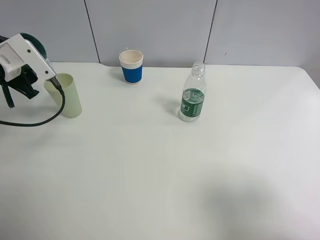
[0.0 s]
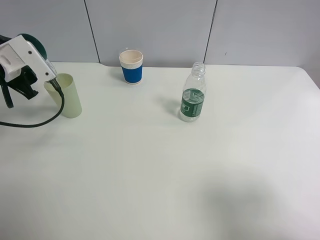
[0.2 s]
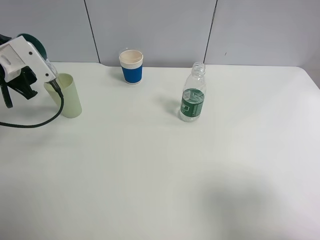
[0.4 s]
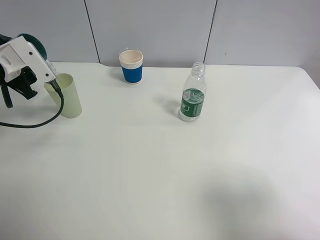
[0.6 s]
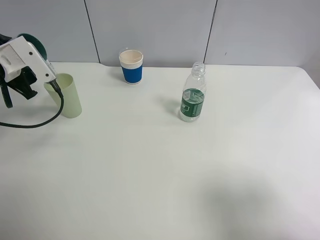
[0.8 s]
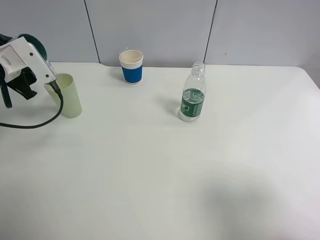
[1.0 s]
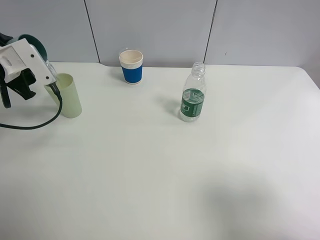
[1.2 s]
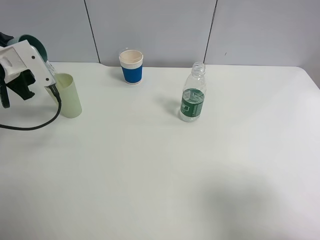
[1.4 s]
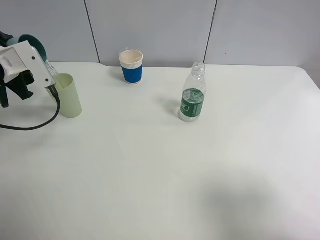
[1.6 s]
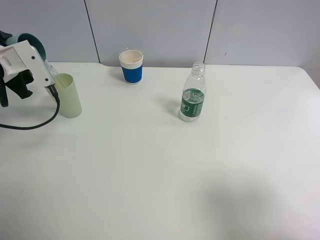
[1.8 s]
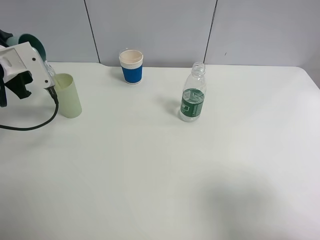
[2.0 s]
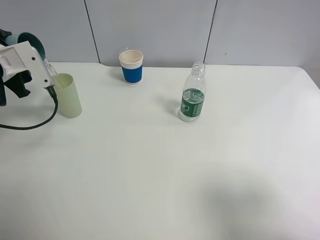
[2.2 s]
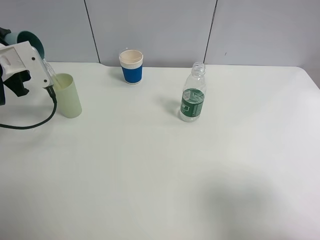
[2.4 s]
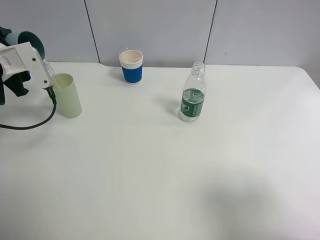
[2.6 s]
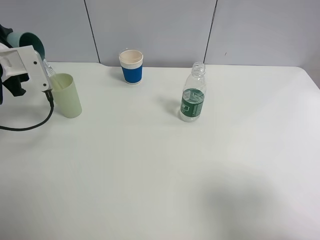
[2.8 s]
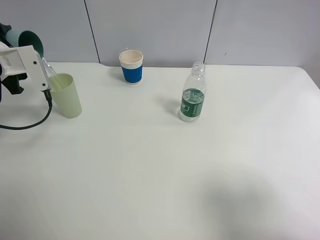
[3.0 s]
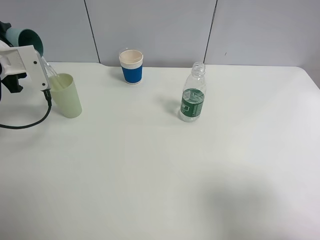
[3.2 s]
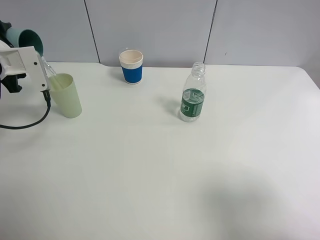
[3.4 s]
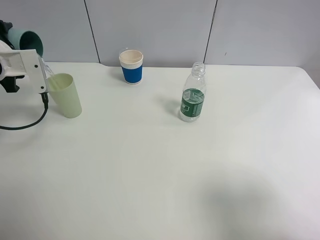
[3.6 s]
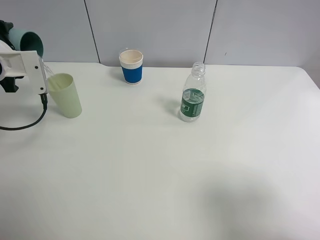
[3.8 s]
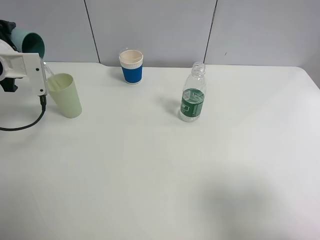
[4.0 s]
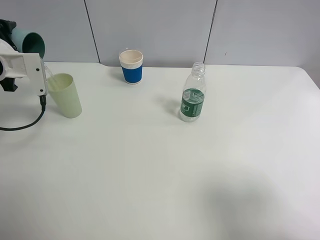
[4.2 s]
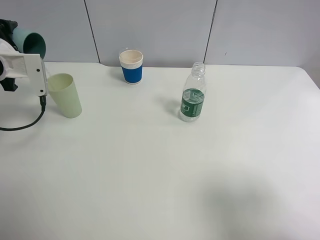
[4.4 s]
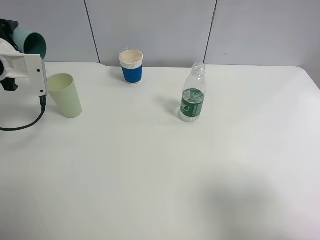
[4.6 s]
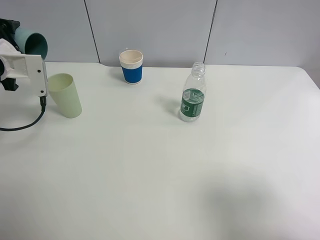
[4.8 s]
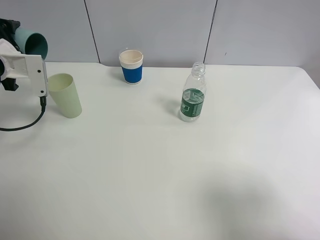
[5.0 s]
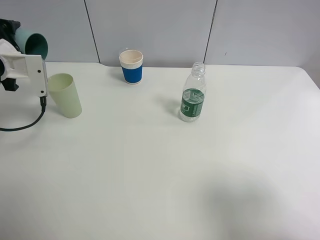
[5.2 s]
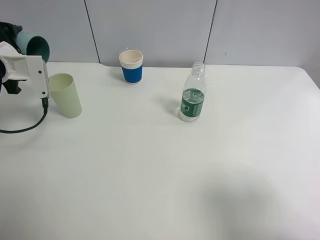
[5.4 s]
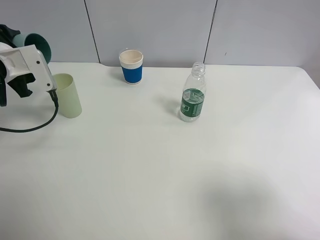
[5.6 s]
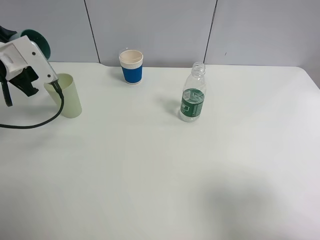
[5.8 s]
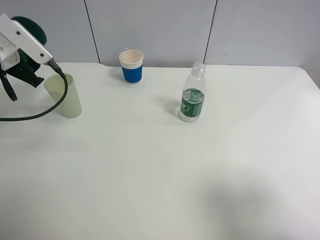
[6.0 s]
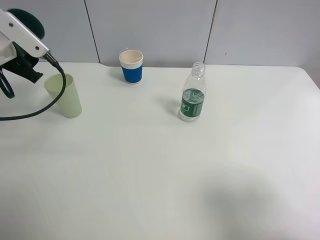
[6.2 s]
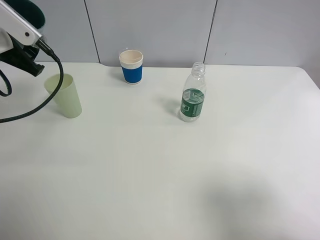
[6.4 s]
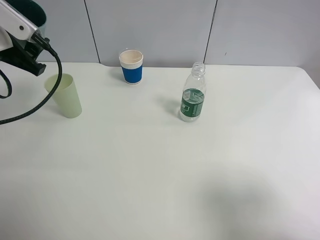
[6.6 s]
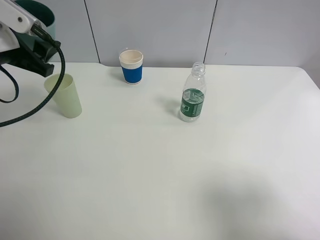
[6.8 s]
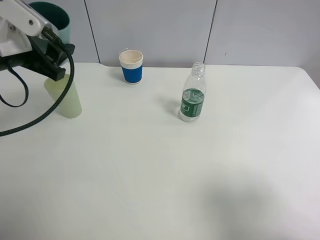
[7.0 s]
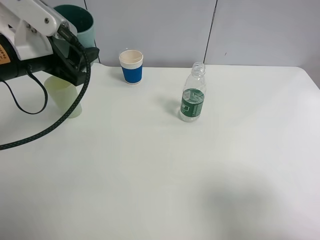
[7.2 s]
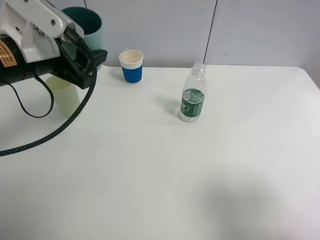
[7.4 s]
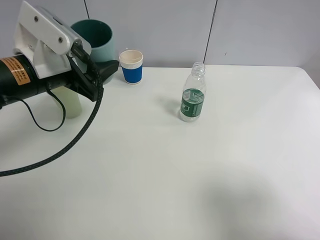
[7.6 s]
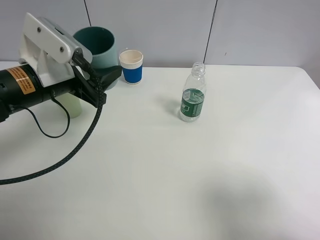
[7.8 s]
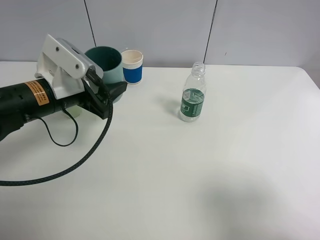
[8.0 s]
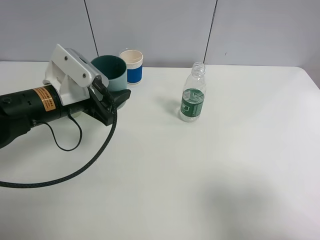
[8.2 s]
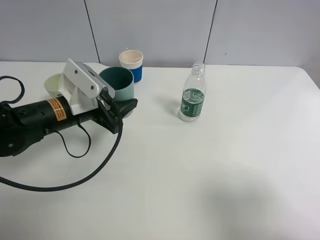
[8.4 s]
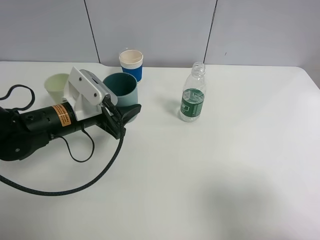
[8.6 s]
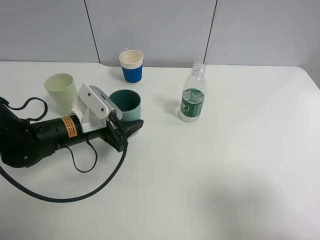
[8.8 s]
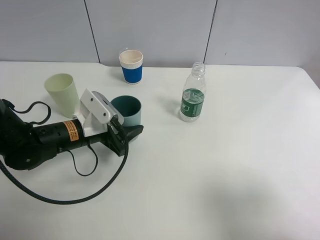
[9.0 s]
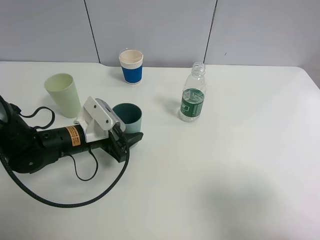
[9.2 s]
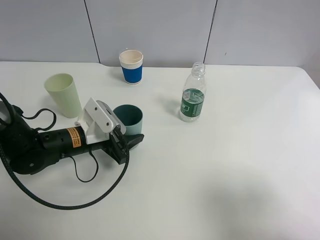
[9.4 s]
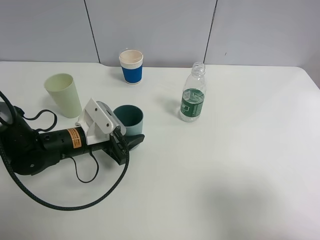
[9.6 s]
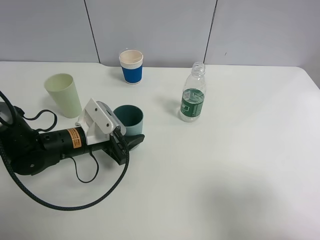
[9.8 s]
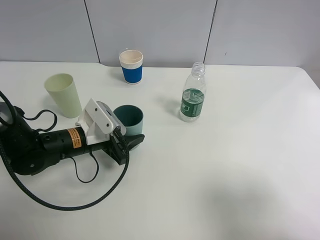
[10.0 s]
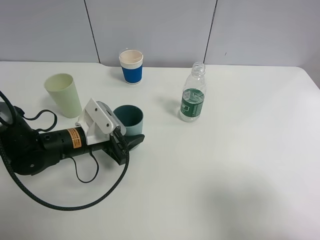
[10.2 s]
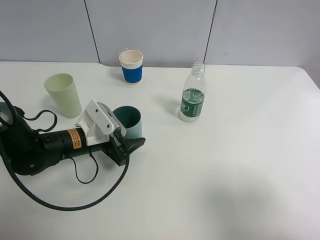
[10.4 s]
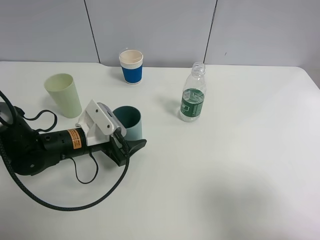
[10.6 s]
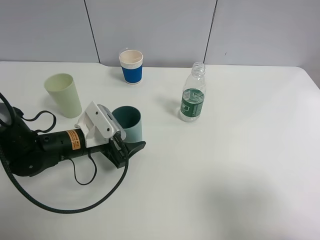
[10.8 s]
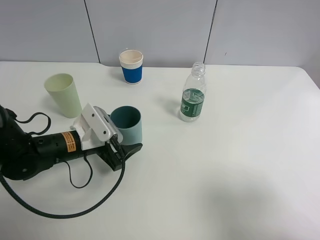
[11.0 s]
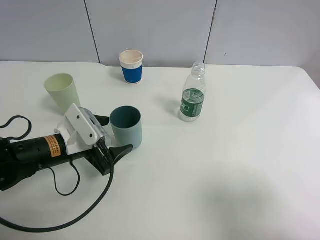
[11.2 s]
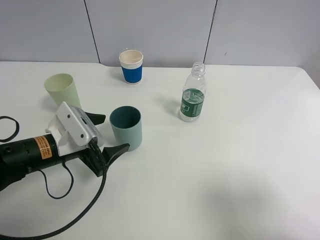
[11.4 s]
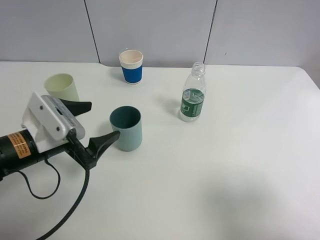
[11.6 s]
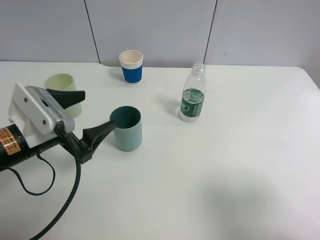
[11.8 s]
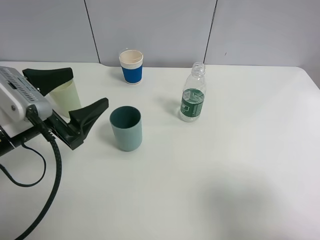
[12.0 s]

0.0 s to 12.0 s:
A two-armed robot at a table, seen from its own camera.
Task of the whole recording: use a clamp to hold the bottle of the drink, pour the beverage into a random cup, then clamp the cup containing the drink and pour the drink into another random cup.
Step, 0.0 to 6.6 s: Pour the water into the green plastic cup with left gripper.
Step, 6.8 to 11.0 s: Place the blue plastic cup on the table with left gripper.
0.0 to 1.6 s: There are only small adjustments of the grippers.
1.6 to 3.0 s: The grippers move only a little.
3.0 to 4.4 s: The grippers make only small movements.
6.0 to 7.6 s: The left gripper goes approximately 15 cm to the right and backward.
7.6 to 9.0 s: The left gripper heads downward, covering about 15 cm.
9.0 to 10.4 s: The left gripper opens up.
10.4 to 12.0 s: The left gripper moves upward, backward and to the left, some 15 cm.

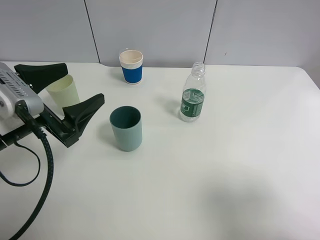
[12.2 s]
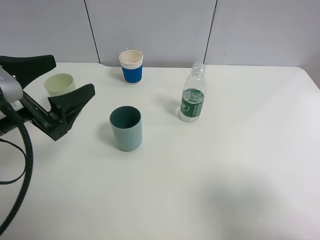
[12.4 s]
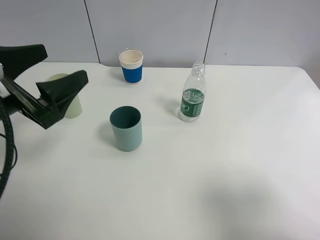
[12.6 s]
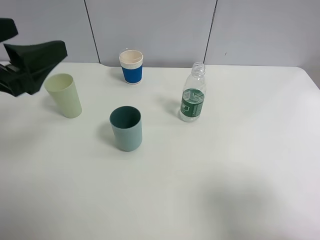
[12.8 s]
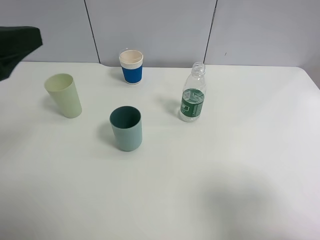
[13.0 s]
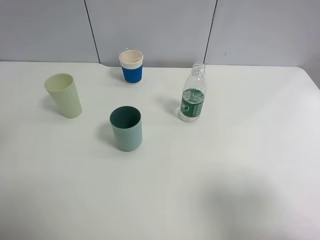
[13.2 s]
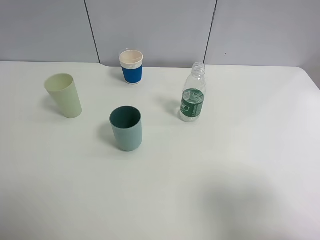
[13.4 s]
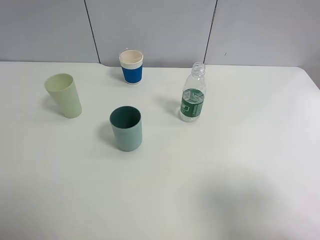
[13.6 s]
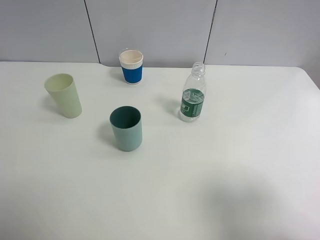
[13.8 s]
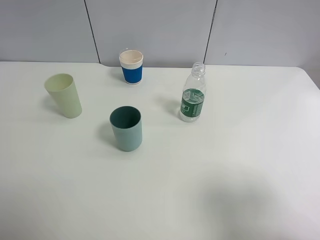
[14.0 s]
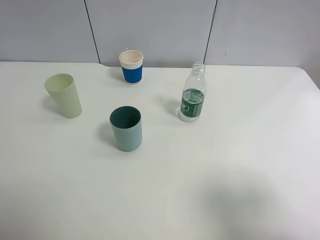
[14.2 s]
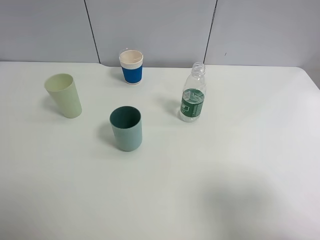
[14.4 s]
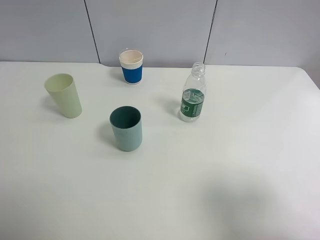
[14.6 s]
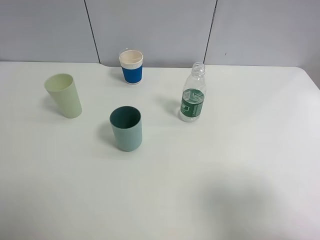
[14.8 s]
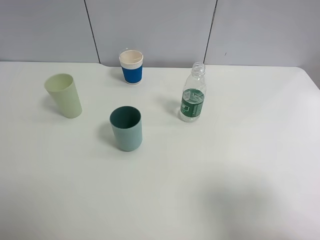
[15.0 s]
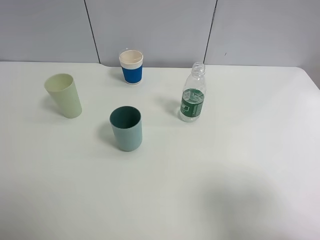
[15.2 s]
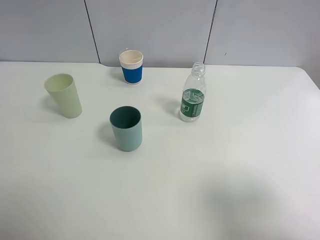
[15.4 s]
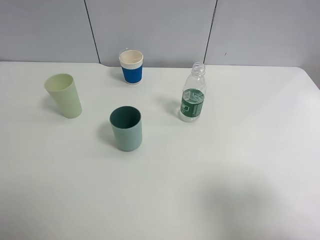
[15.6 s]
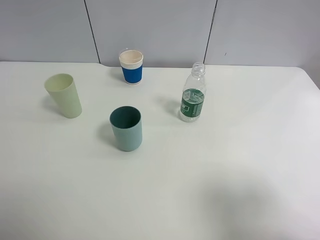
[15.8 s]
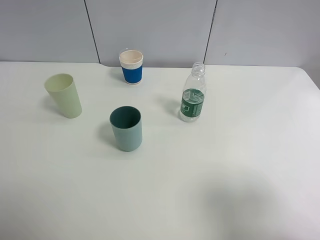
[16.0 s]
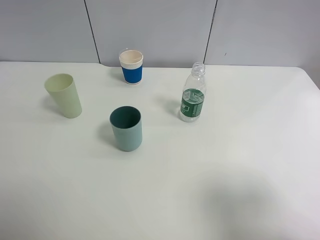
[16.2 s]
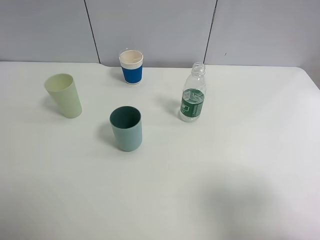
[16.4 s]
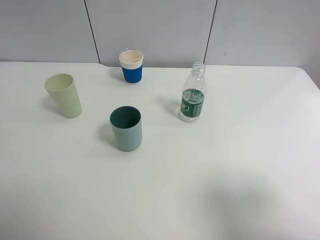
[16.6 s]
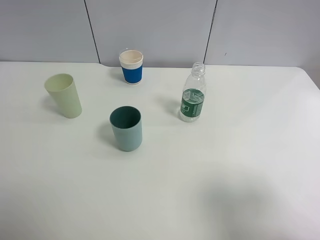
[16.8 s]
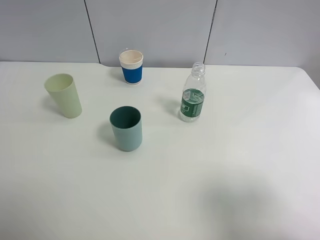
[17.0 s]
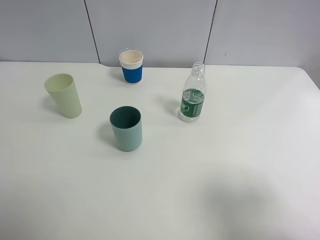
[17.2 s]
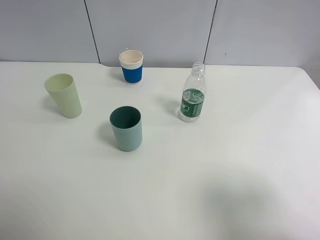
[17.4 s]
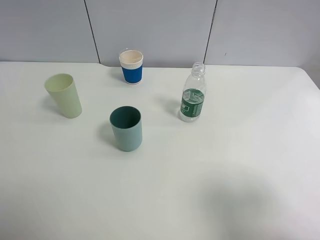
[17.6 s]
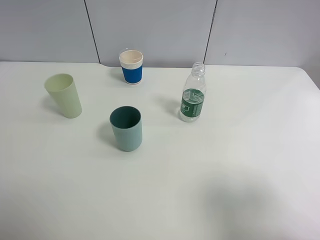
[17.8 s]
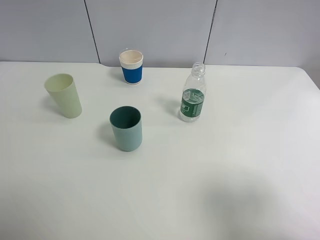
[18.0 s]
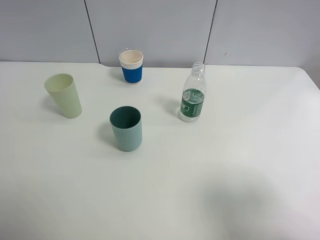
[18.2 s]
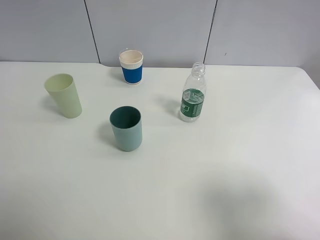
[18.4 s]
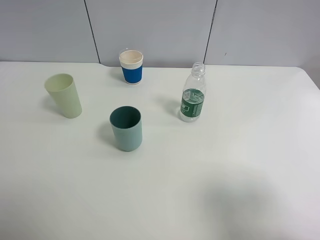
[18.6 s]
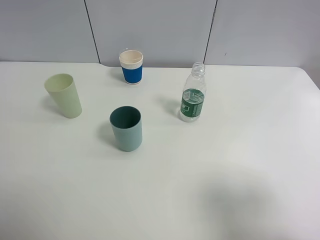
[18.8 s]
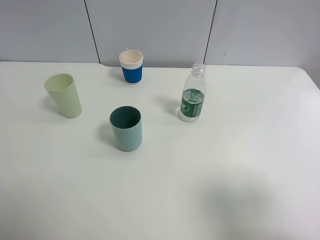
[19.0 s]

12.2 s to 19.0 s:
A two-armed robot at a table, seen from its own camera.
Task of the whole recording: use a clamp to hold the bottle of the drink, pour the beverage into a random cup, then clamp the cup containing the drink and pour the drink into another random cup.
12.2 to 13.6 s: The left gripper heads upward, backward and to the left, covering about 20 cm.
16.2 to 19.0 s: The two grippers keep their place.

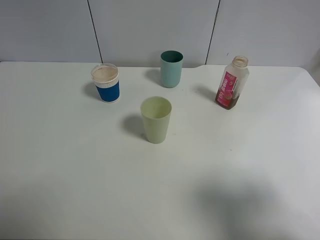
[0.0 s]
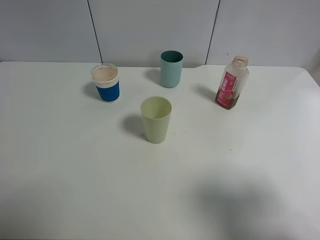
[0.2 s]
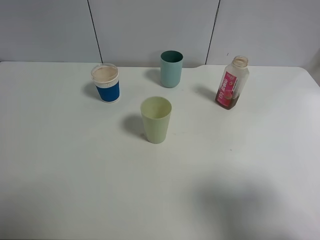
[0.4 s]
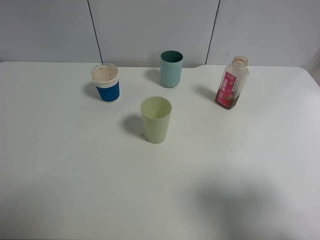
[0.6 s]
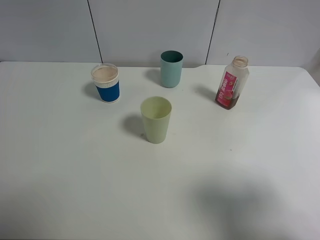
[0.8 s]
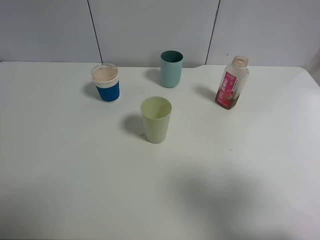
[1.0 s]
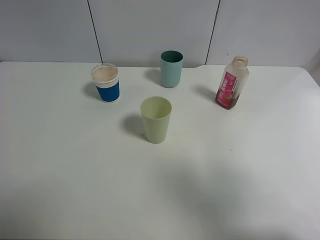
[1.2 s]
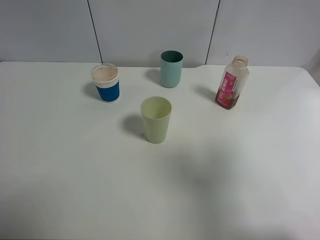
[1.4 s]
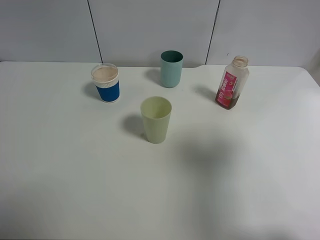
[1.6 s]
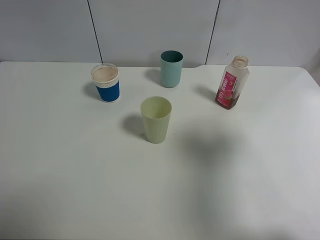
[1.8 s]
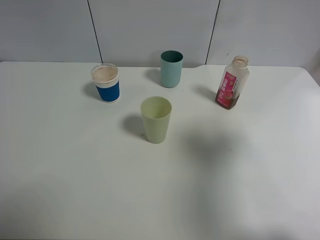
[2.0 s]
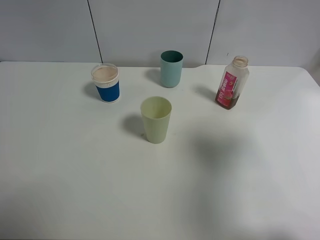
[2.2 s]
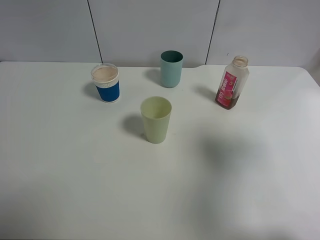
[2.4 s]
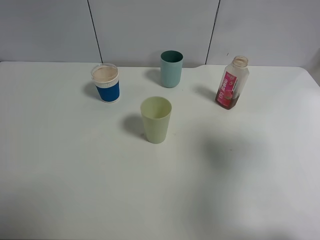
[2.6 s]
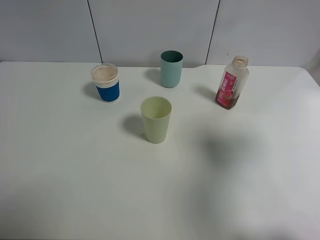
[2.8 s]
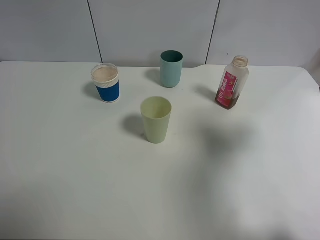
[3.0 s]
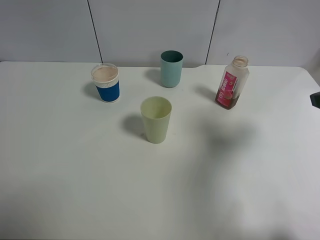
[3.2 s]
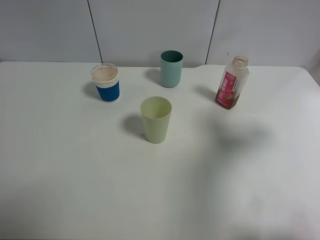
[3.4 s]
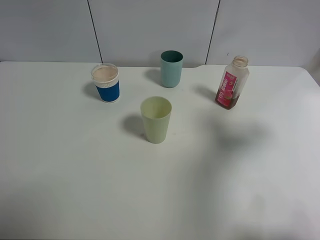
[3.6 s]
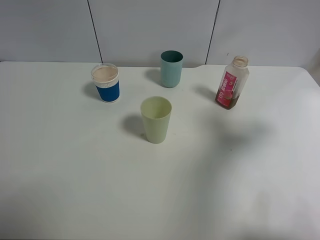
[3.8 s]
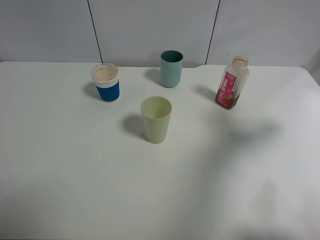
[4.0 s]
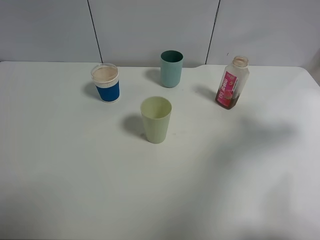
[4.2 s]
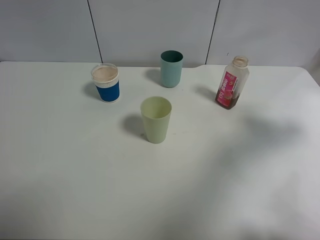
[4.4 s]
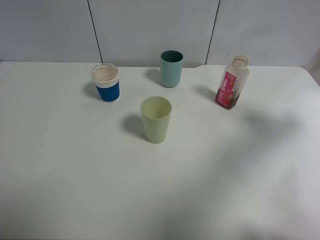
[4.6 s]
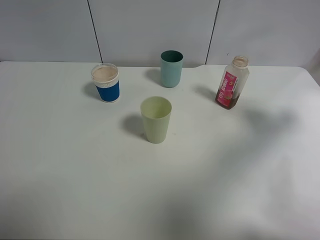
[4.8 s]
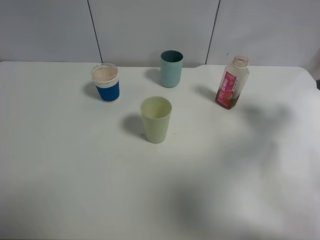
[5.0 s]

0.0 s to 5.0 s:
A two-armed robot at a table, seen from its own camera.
Task of the whole recording: use a clamp to hold the bottle of the drink, pour the beverage into a random cup, then clamp the cup containing the drink and pour the drink into another random cup.
0.0 to 1.6 s: The right gripper is displaced forward and upward by roughly 10 cm.
1.6 to 3.4 s: The right gripper moves forward and downward, about 10 cm.
3.4 to 5.0 s: The right gripper travels forward, to the right and downward by roughly 15 cm.
